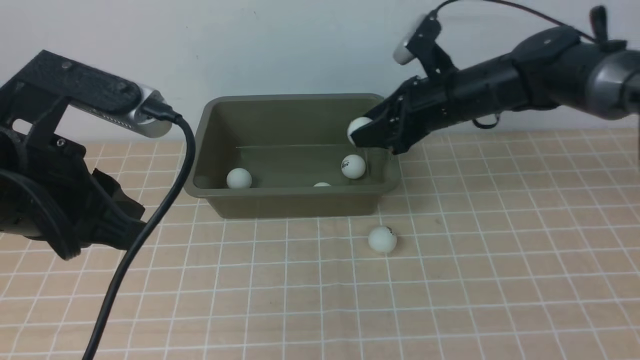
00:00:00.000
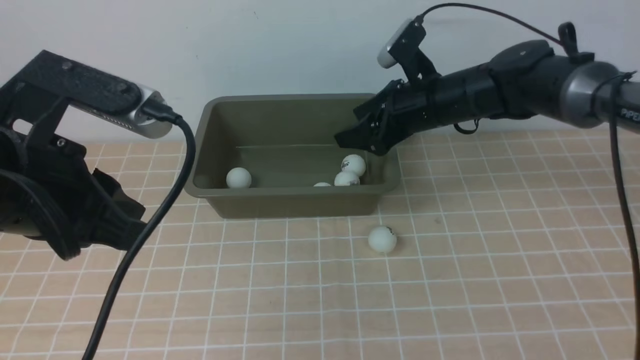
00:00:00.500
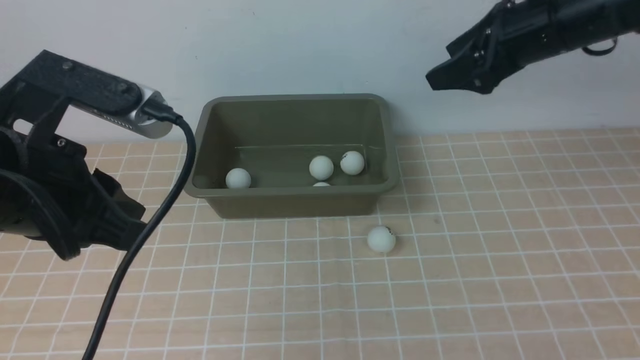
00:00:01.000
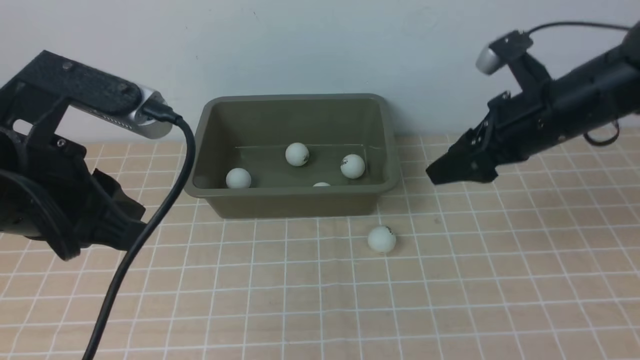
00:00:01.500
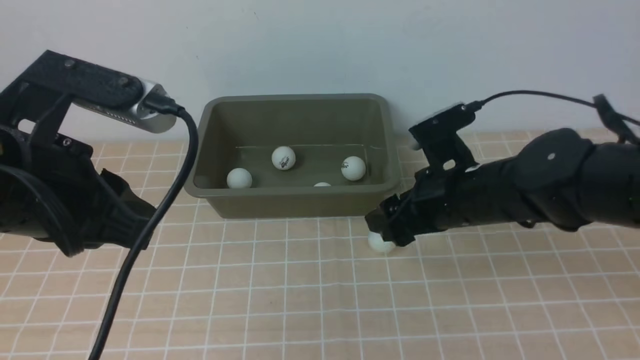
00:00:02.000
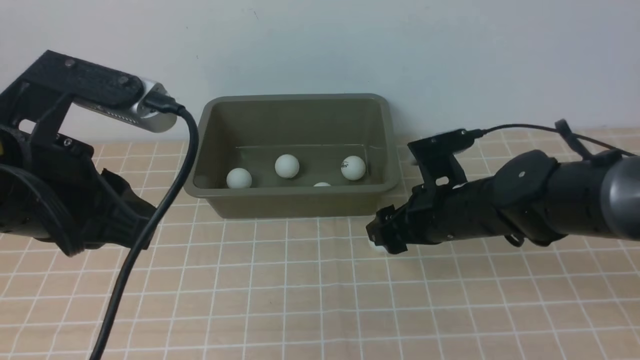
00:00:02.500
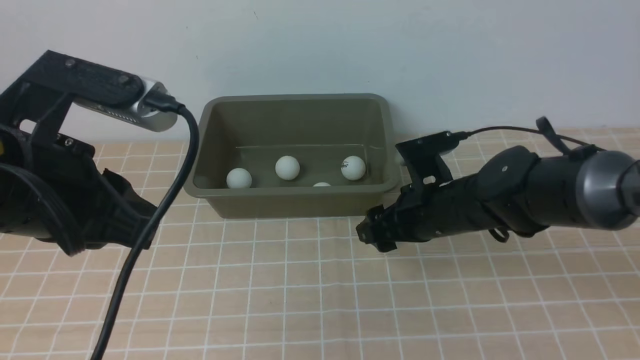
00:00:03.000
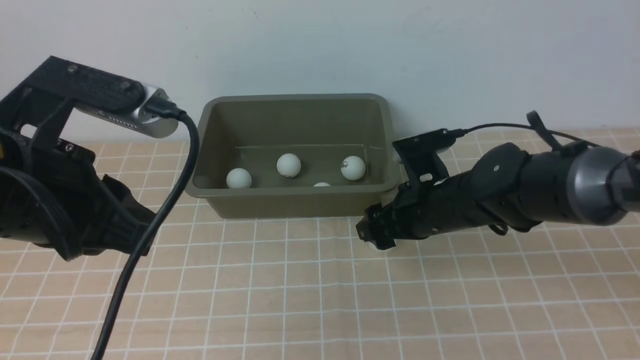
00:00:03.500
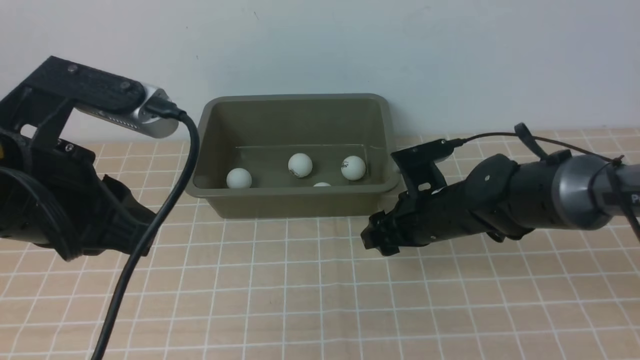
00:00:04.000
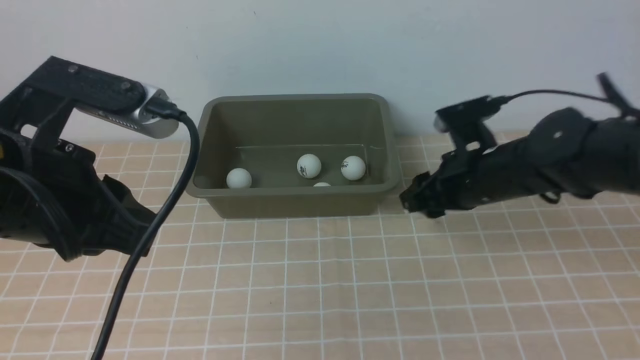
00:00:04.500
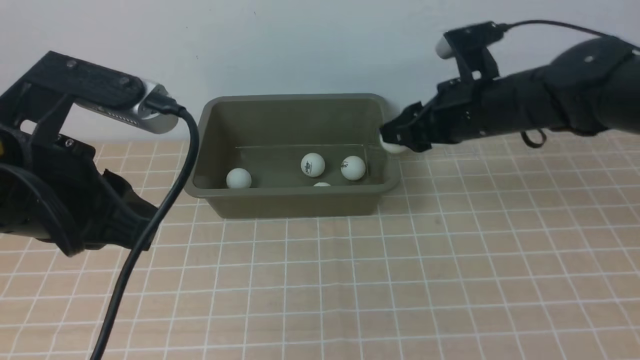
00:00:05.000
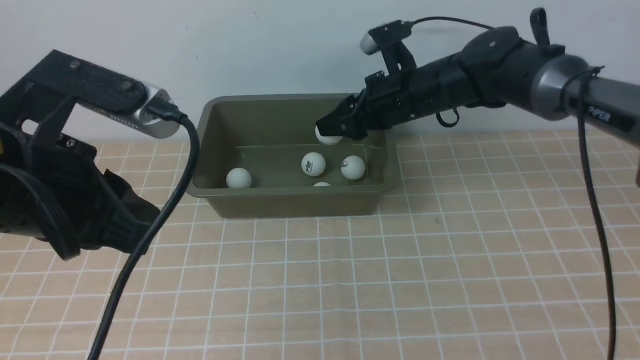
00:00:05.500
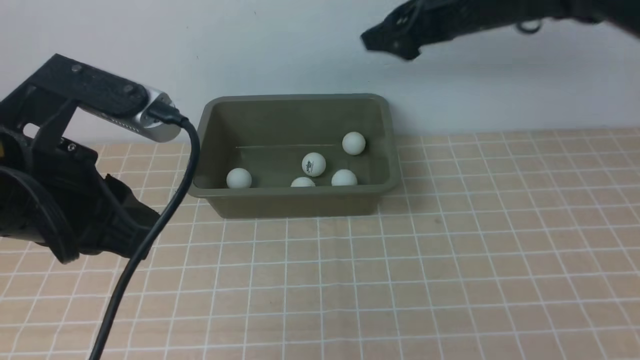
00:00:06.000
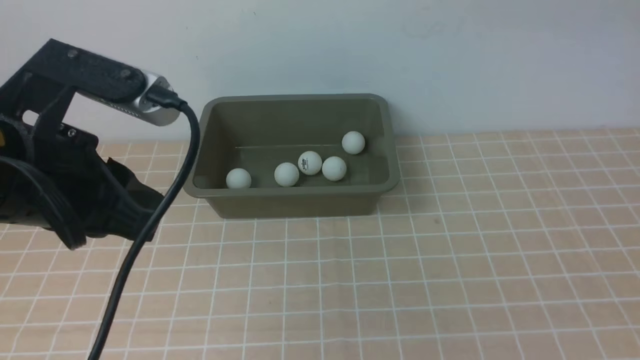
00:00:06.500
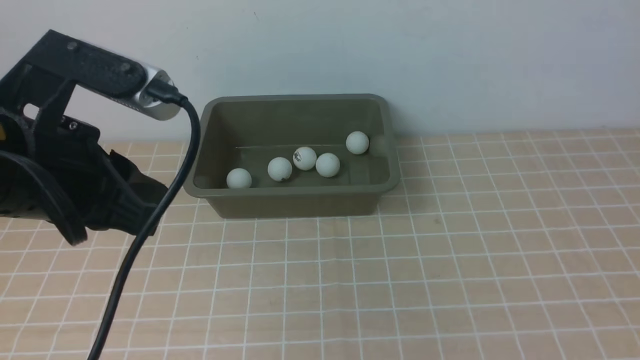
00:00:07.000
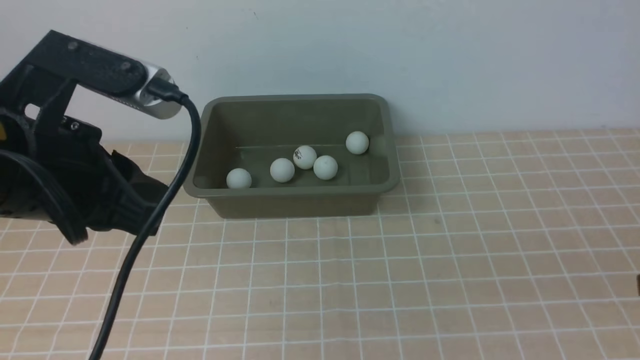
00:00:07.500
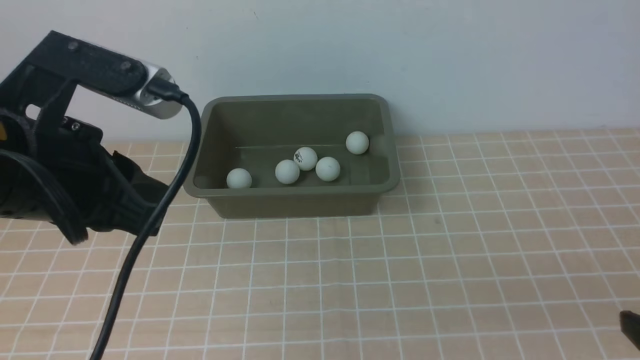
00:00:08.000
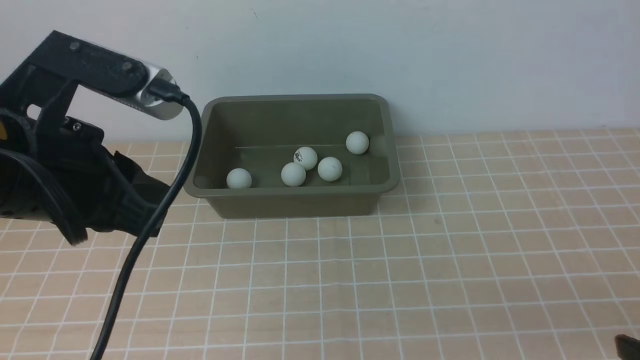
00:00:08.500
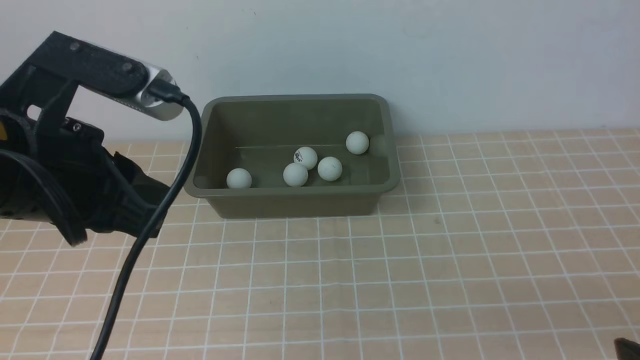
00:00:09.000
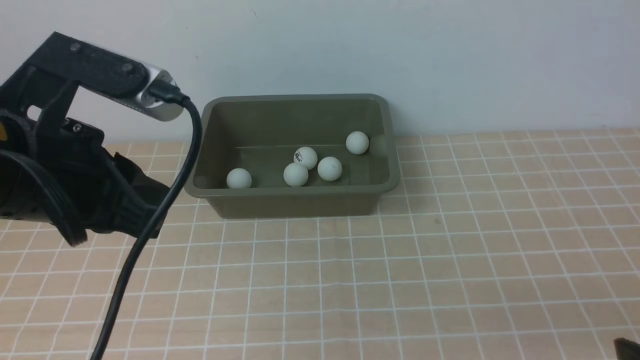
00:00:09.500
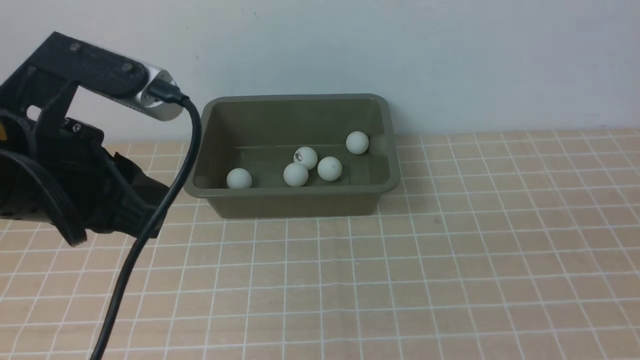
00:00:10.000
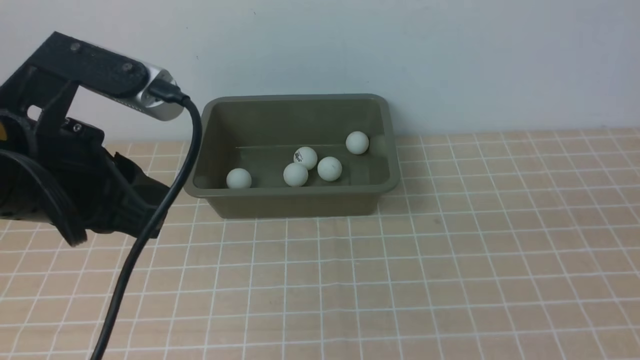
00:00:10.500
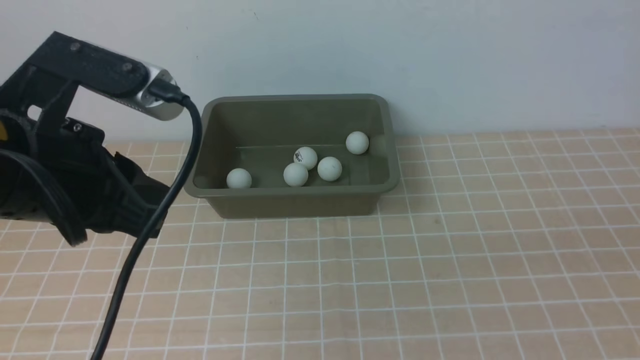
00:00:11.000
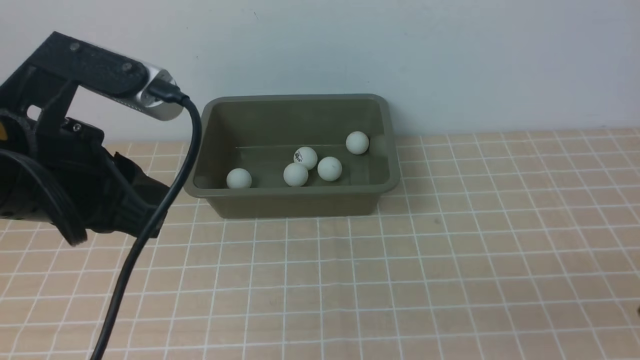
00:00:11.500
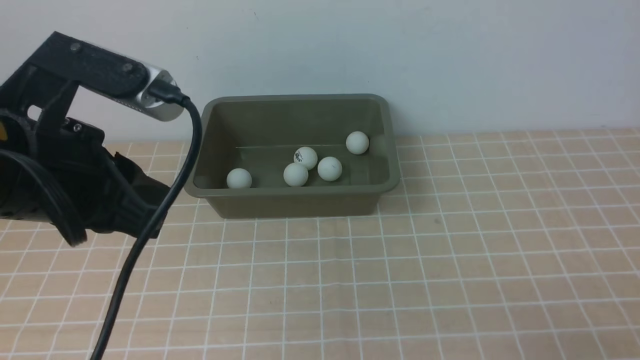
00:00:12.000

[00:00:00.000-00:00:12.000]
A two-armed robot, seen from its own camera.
Step, 00:00:00.000 to 00:00:00.500: use the right arm to put the table tennis ball into the box.
Step, 00:00:01.000 to 00:00:04.000: use the right arm to clamp the table tennis ball closest to it.
Step, 00:00:04.500 to 00:00:05.500: use the right arm to put the table tennis ball into the box.
00:00:00.000 to 00:00:02.000: The right gripper is displaced backward by about 15 cm, and opens.
00:00:02.000 to 00:00:04.000: The right gripper moves downward, about 5 cm.
00:00:04.000 to 00:00:06.000: The right gripper heads upward, covering about 25 cm, and opens up.
00:00:06.000 to 00:00:08.000: The right gripper heads backward, covering approximately 35 cm.

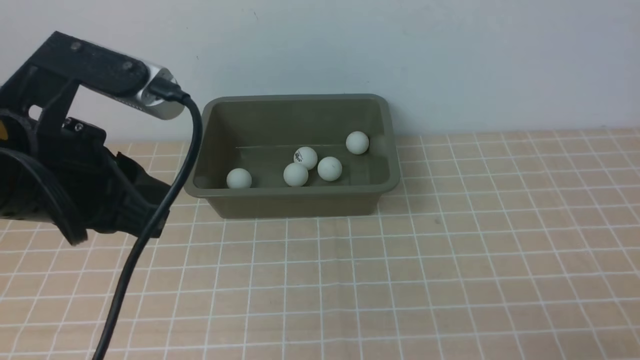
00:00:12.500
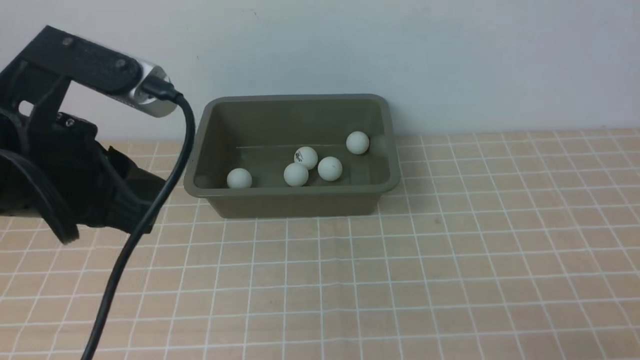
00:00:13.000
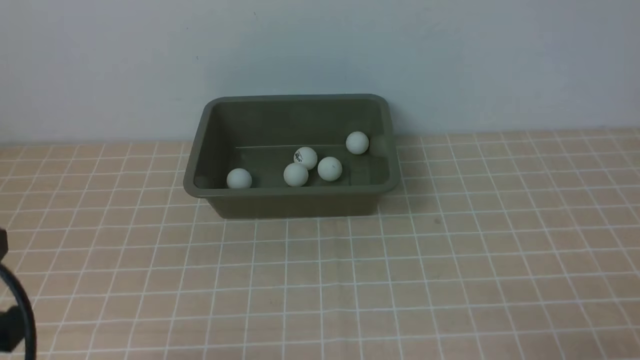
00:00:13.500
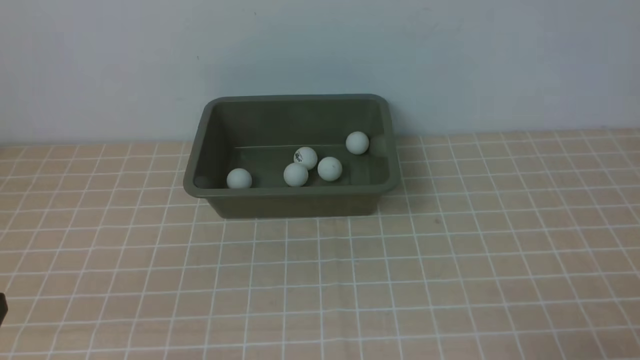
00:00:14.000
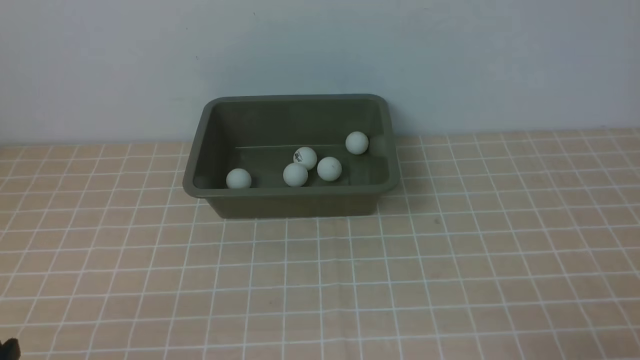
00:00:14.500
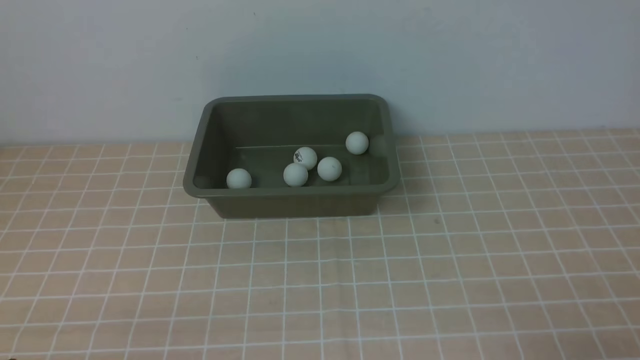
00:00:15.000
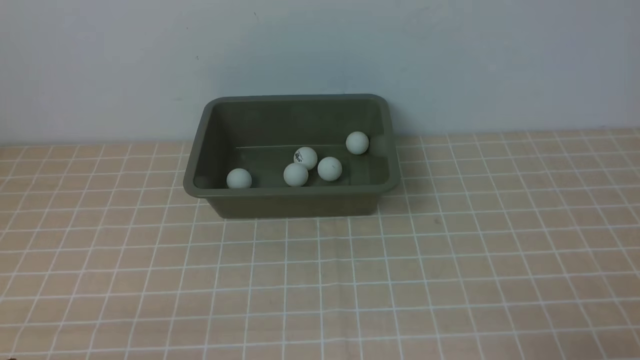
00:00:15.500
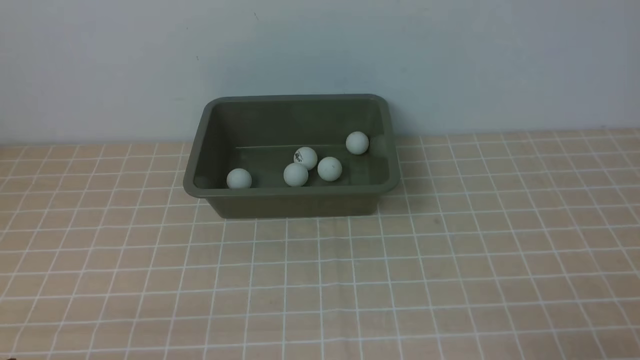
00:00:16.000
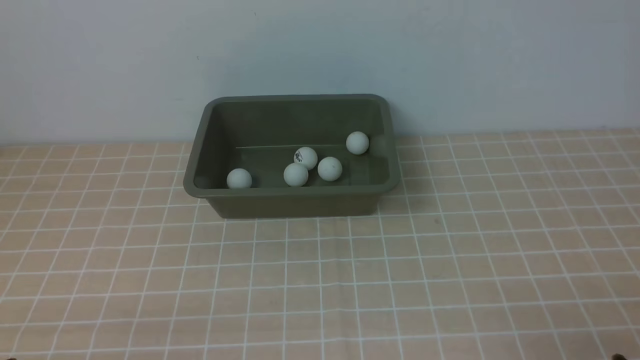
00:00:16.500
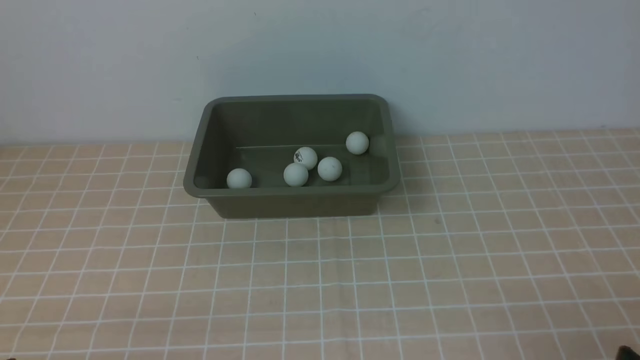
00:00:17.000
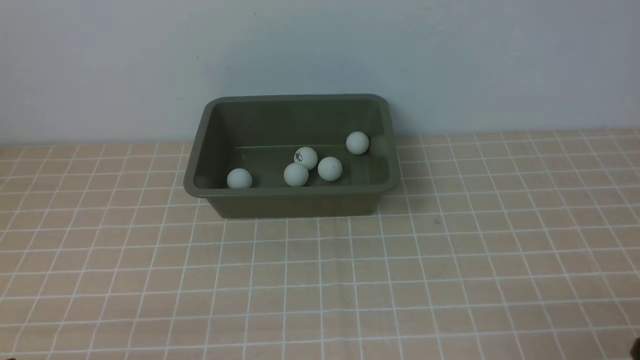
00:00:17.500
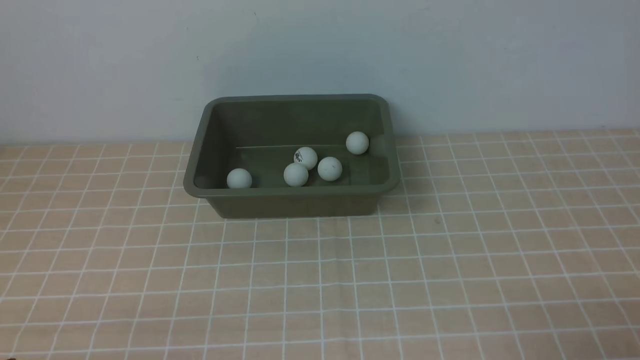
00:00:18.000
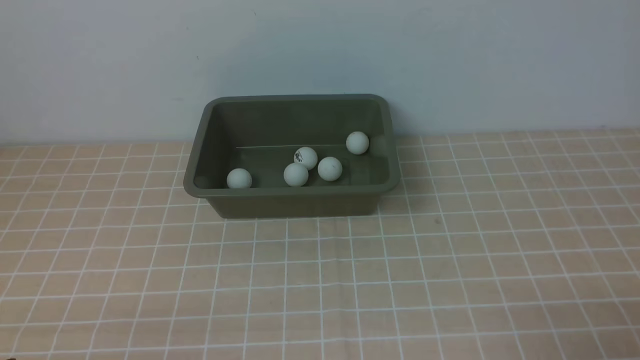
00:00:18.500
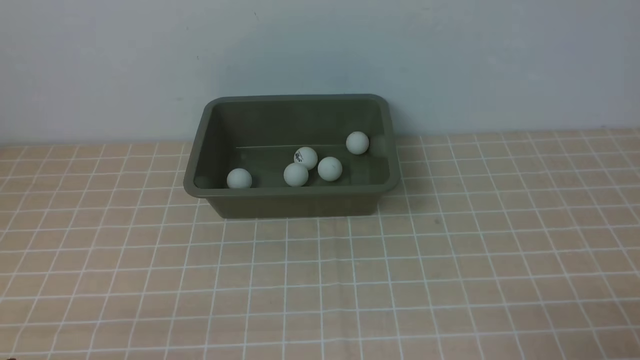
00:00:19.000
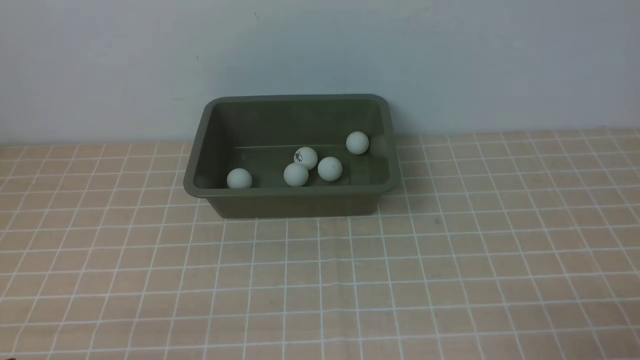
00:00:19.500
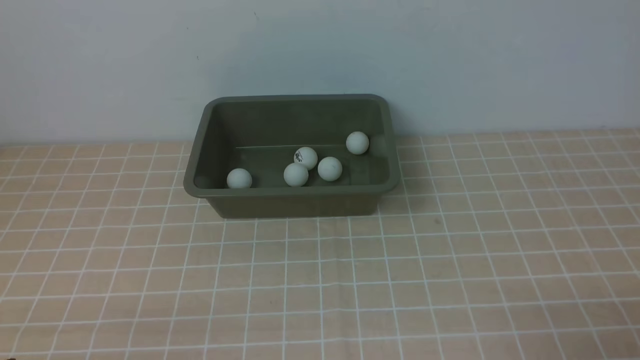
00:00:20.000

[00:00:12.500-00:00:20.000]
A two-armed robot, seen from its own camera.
00:00:12.500 to 00:00:14.500: The left gripper travels downward, backward and to the left by approximately 25 cm.
00:00:18.000 to 00:00:20.000: Both grippers stay about where they are.
